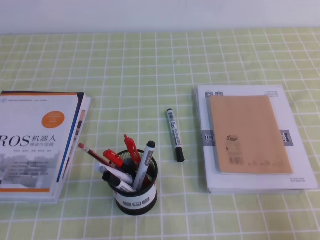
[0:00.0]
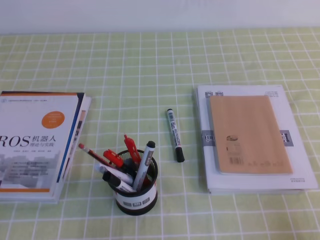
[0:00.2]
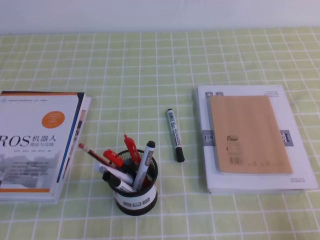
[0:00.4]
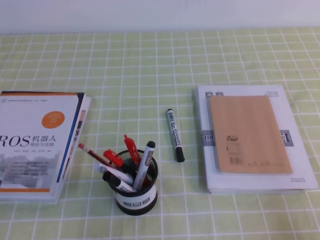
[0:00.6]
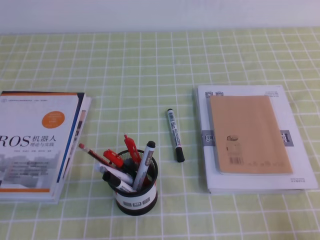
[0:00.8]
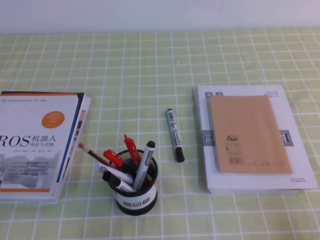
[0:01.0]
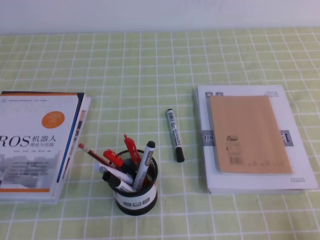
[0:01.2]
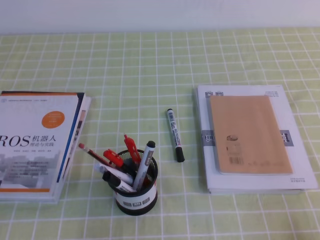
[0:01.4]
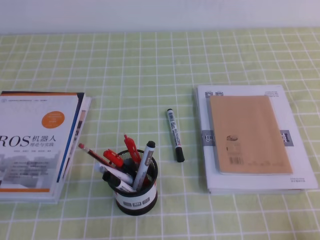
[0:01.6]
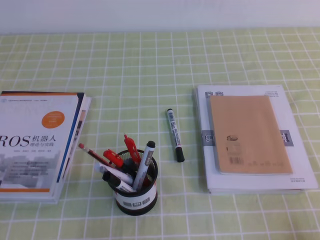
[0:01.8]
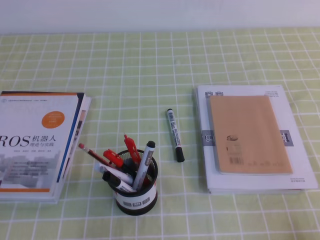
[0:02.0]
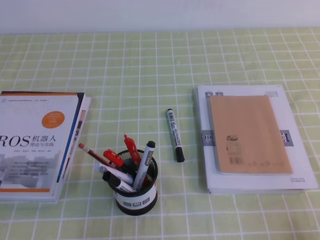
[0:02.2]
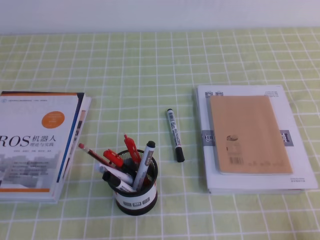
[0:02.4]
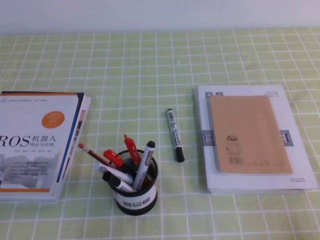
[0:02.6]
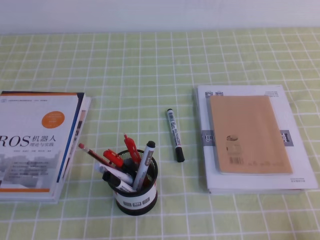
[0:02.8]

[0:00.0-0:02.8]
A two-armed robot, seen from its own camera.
0:01.4 to 0:02.8: The two grippers keep their place.
